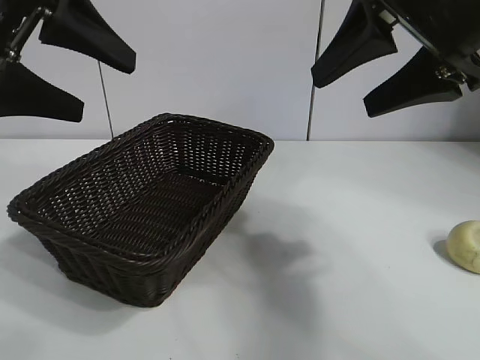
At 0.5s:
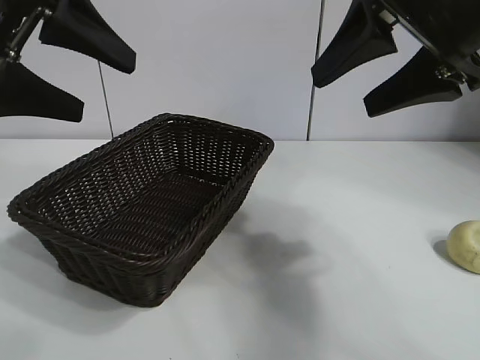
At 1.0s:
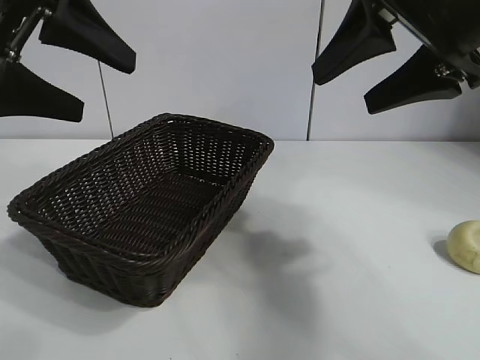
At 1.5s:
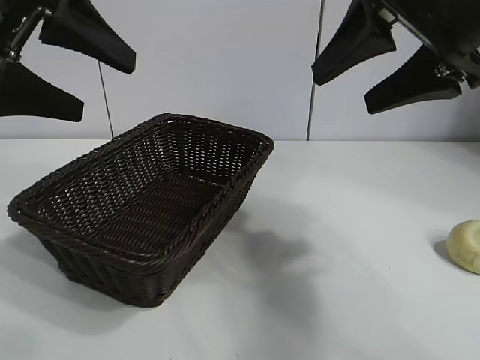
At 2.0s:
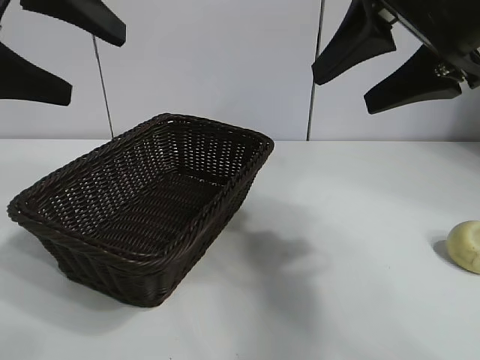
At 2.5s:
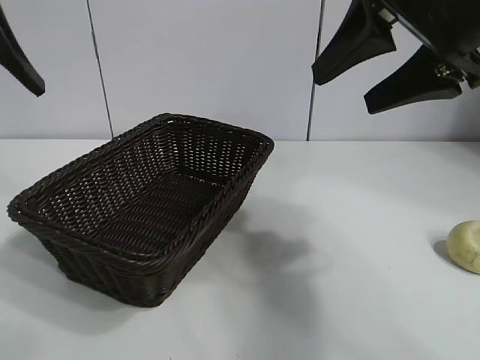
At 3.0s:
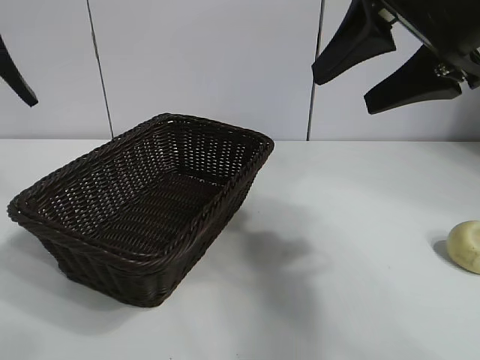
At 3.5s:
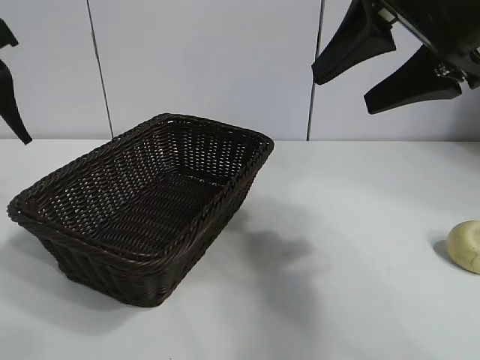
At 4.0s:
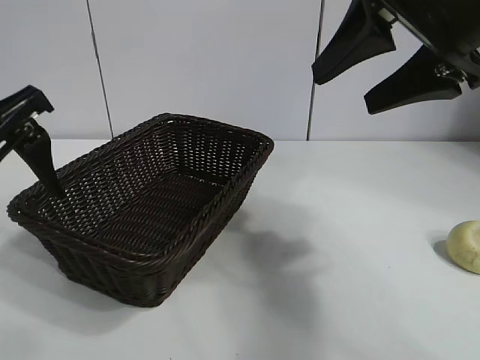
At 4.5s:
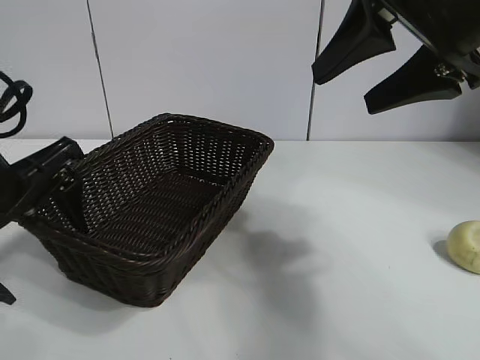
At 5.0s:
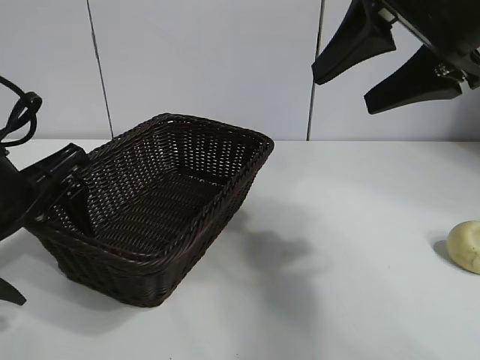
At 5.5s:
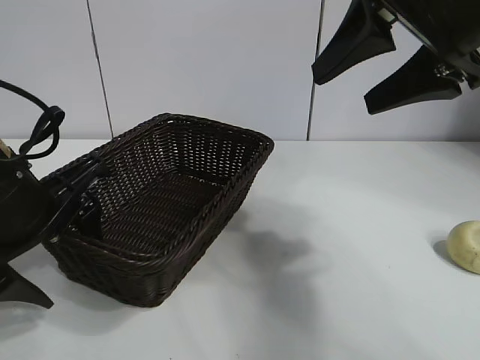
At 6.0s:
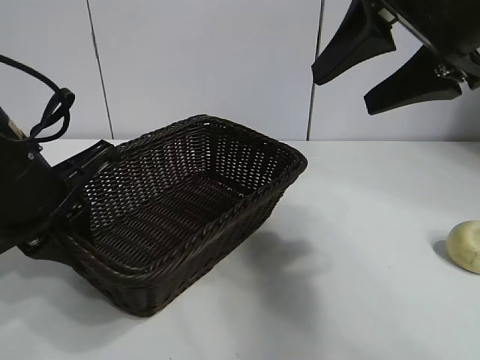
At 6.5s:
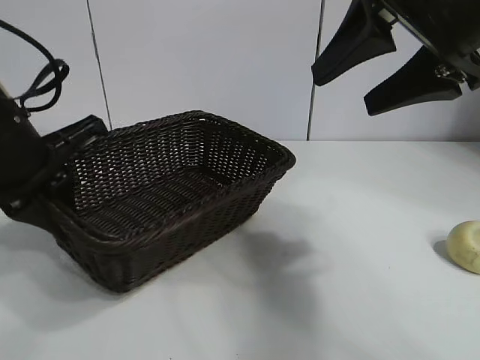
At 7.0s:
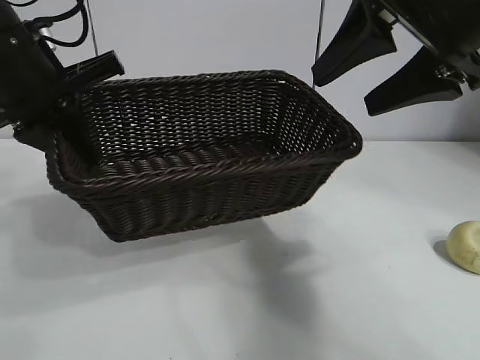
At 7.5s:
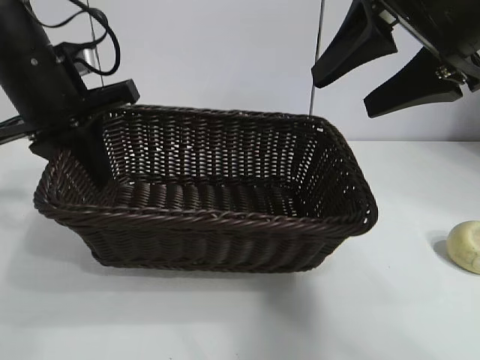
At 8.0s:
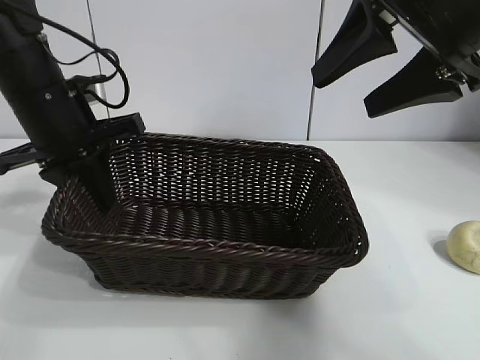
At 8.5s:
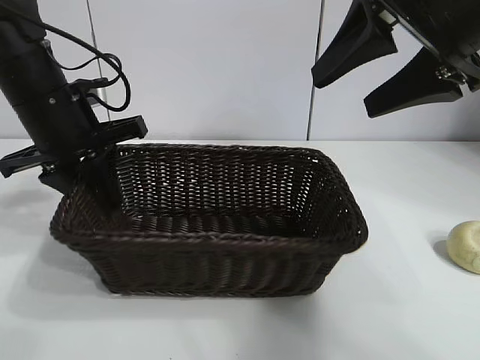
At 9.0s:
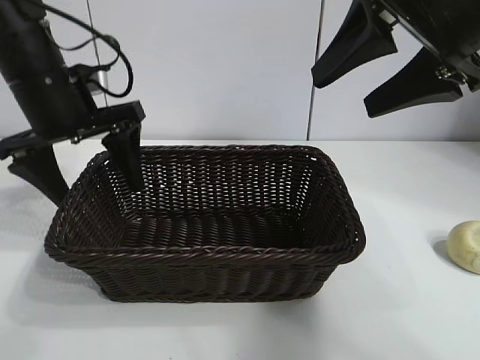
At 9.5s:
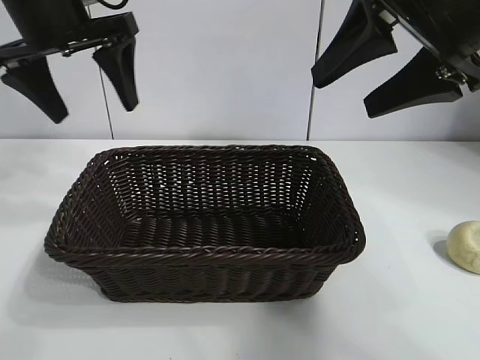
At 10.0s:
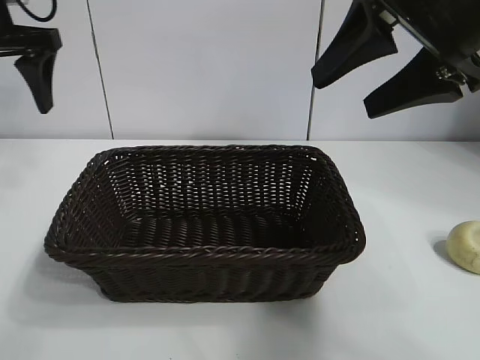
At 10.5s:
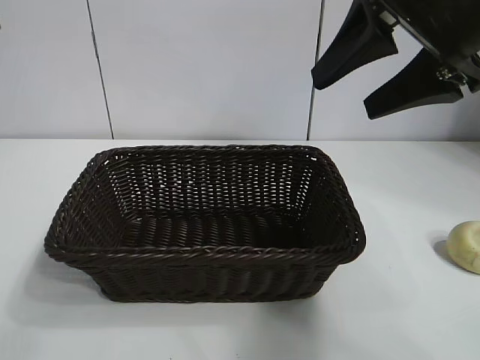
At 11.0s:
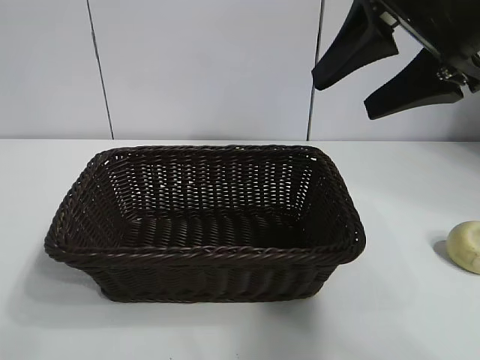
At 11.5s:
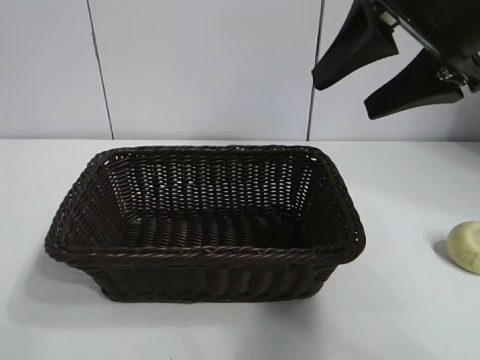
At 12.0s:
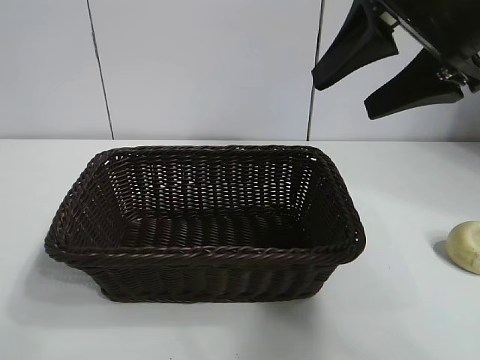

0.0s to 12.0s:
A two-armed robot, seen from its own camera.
Task of the whole recording: pick up the egg yolk pastry and put it into the basket.
Step, 2.0s to 5.5s: Grasp the basket with left gripper.
Step, 6.0s to 8.5s: Place the basket in the center of view with left gripper.

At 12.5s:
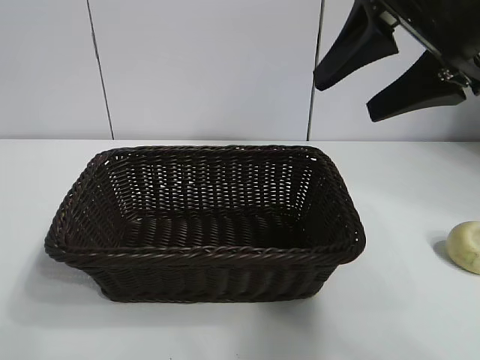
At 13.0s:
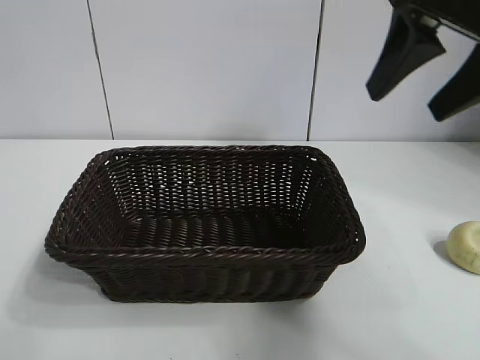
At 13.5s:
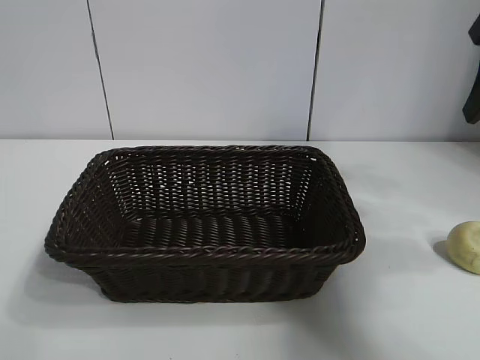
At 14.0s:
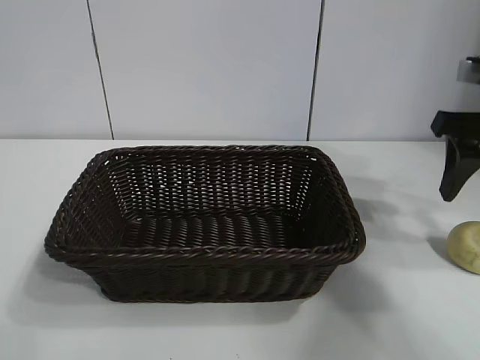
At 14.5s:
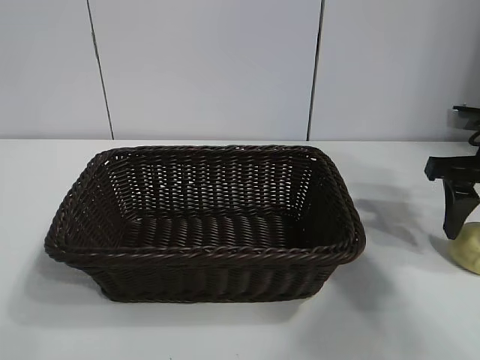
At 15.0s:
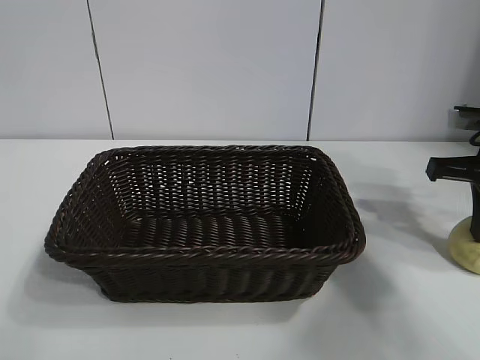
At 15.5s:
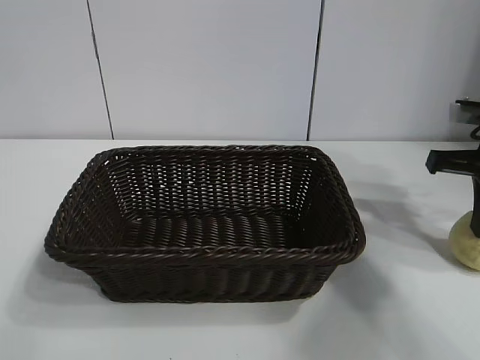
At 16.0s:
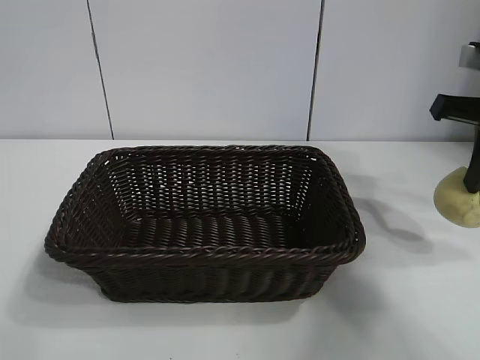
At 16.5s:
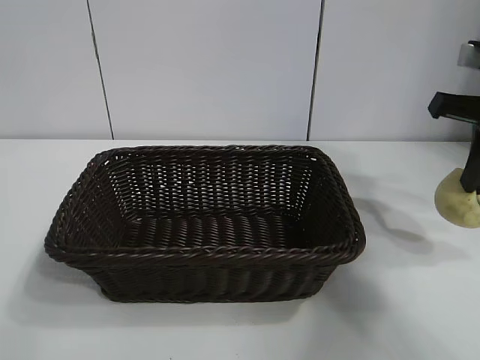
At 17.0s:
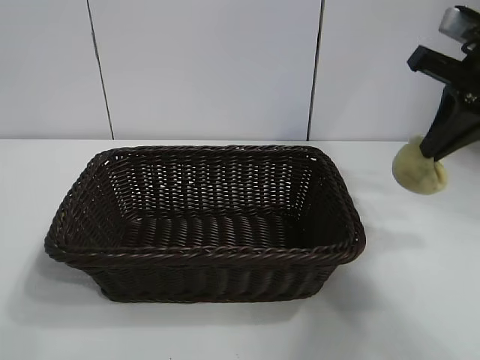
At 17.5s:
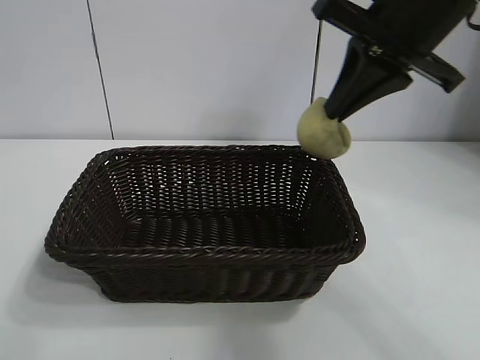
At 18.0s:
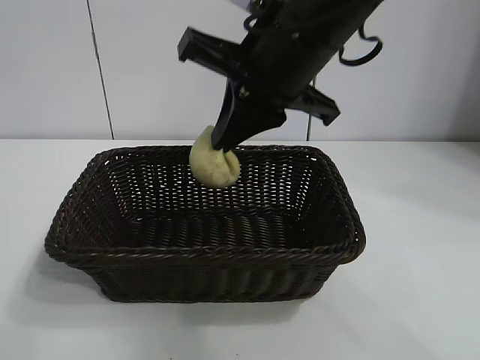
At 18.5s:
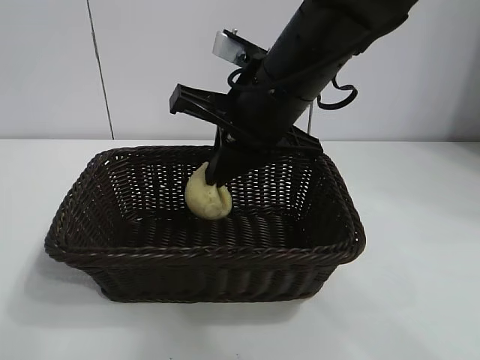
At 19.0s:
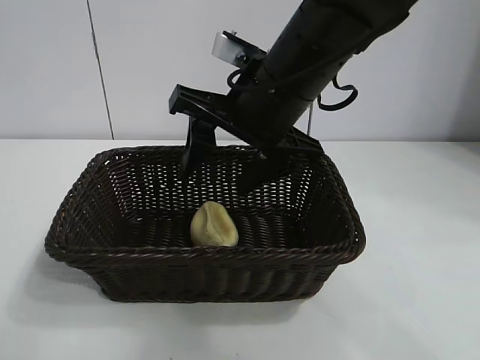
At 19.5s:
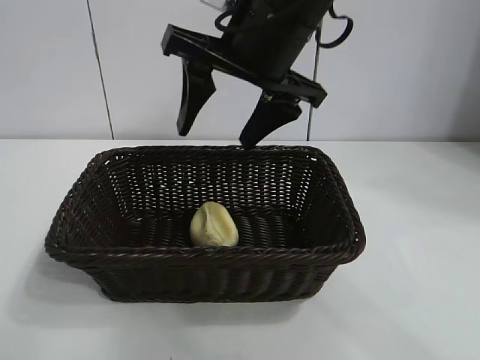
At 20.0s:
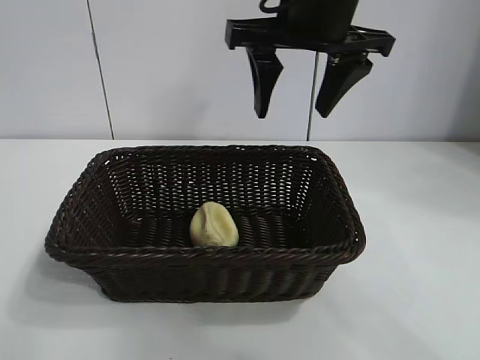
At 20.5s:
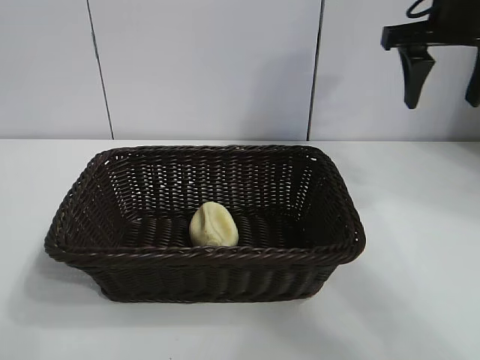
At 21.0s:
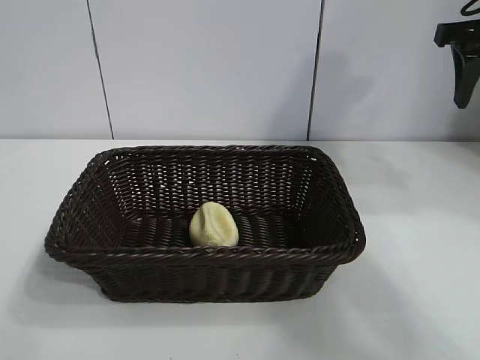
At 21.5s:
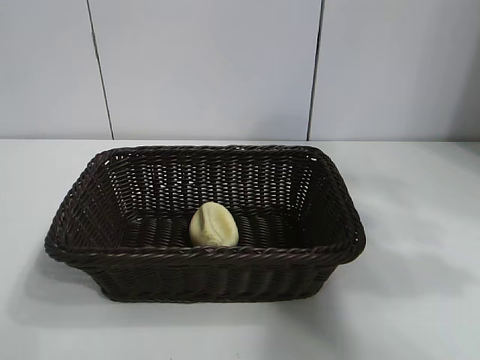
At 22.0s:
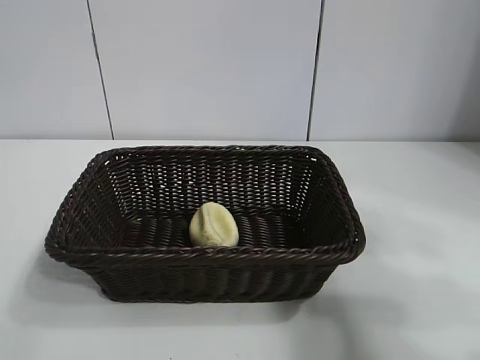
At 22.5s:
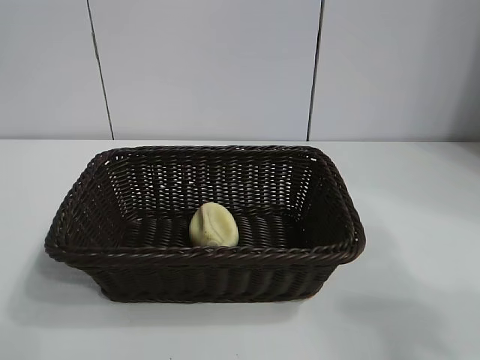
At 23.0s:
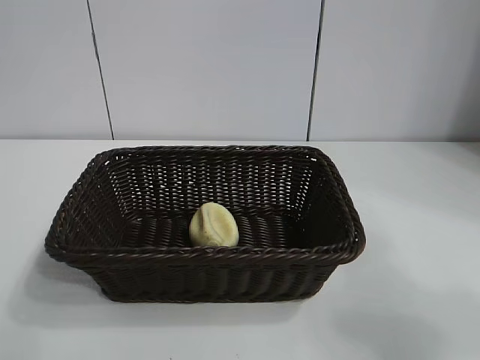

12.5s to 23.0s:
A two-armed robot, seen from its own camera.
Task of the whole recording: pick up the egg yolk pastry and put it into the basket.
Step, 12.5s to 15.0s: Grasp egg yolk pastry with right gripper.
Step, 15.5s to 19.0s: Place the egg yolk pastry in the basket with right gripper.
